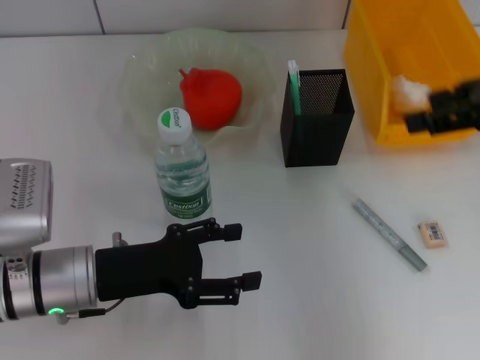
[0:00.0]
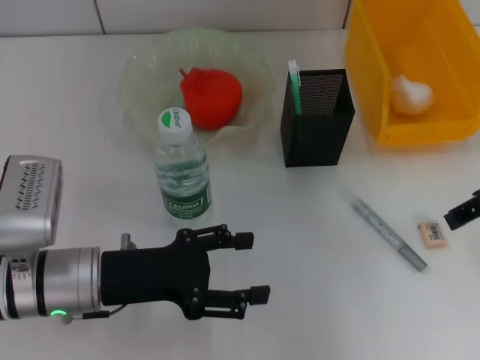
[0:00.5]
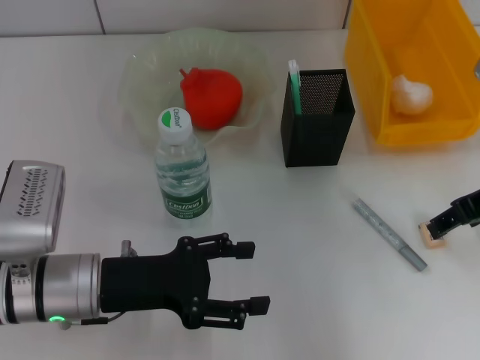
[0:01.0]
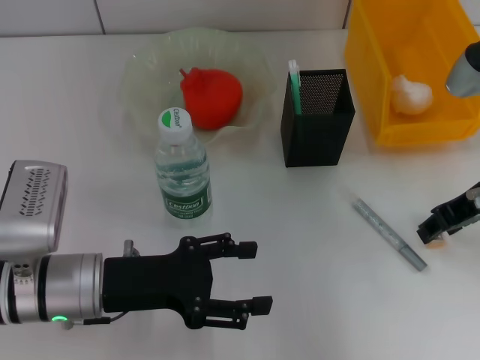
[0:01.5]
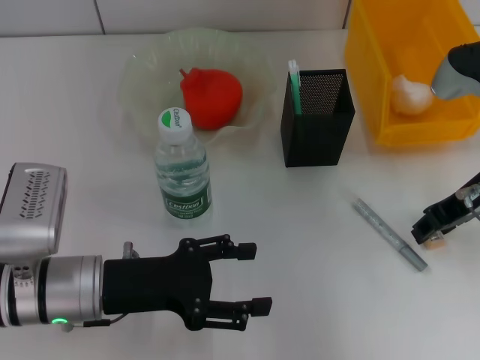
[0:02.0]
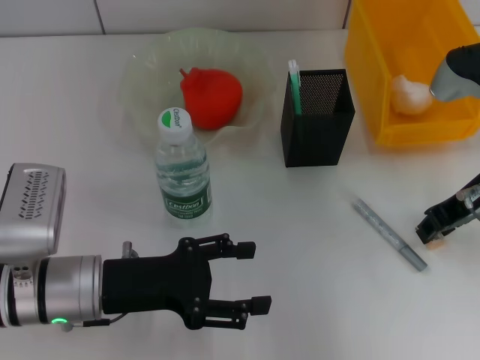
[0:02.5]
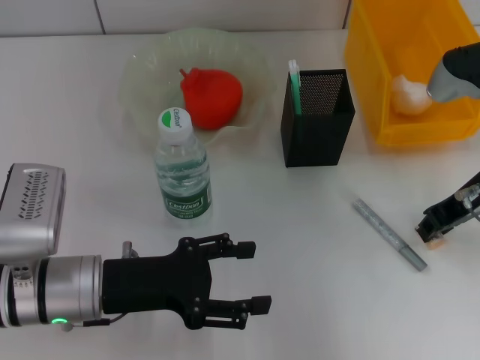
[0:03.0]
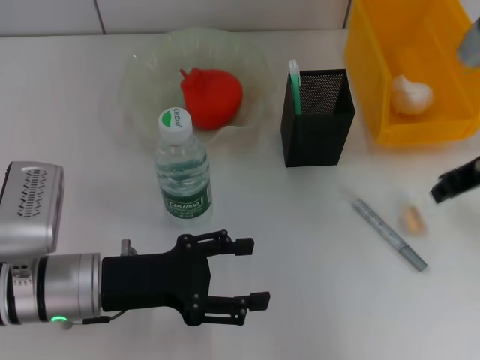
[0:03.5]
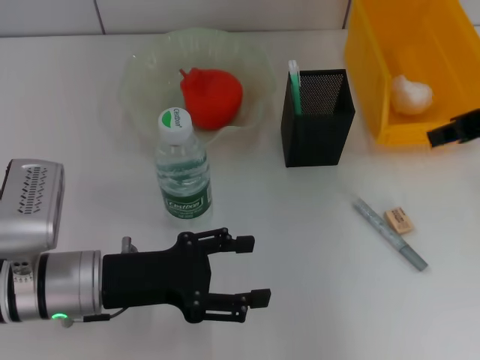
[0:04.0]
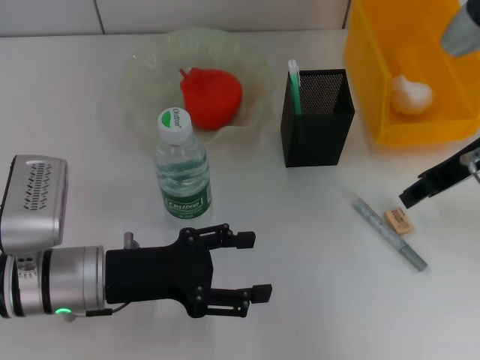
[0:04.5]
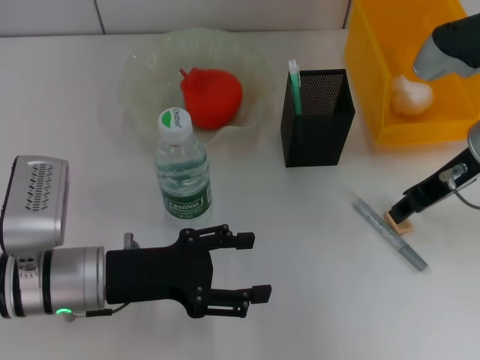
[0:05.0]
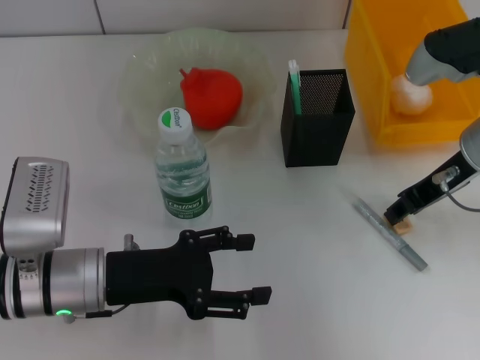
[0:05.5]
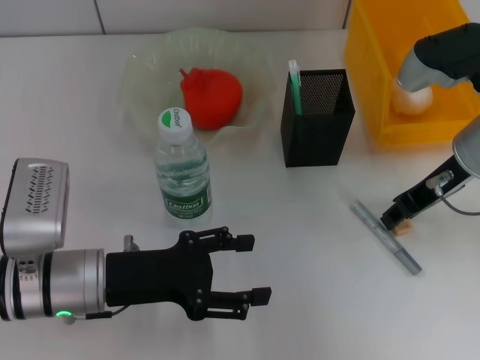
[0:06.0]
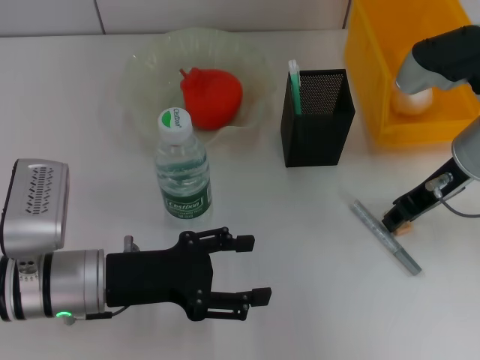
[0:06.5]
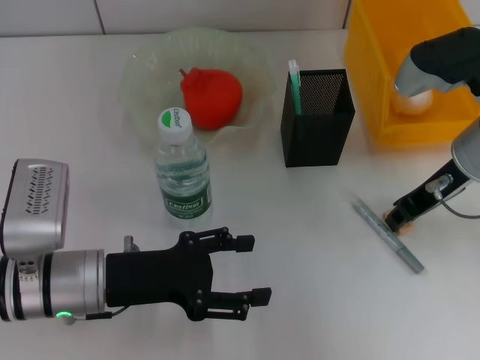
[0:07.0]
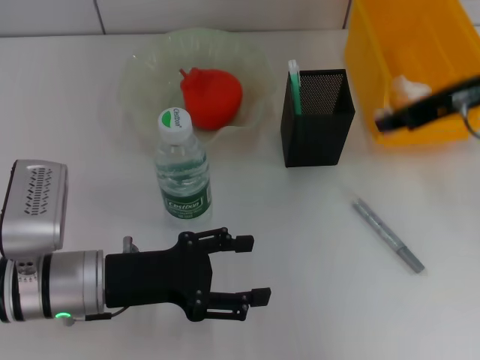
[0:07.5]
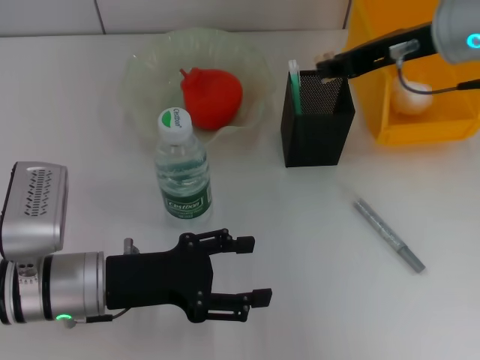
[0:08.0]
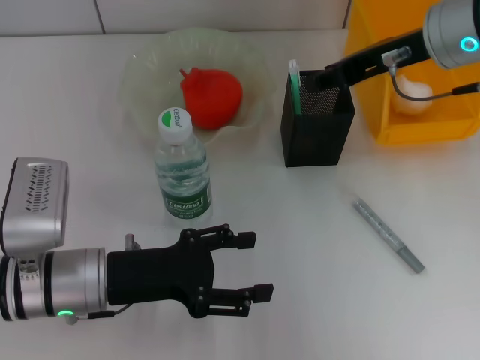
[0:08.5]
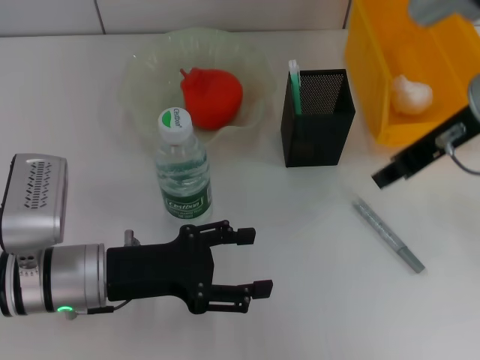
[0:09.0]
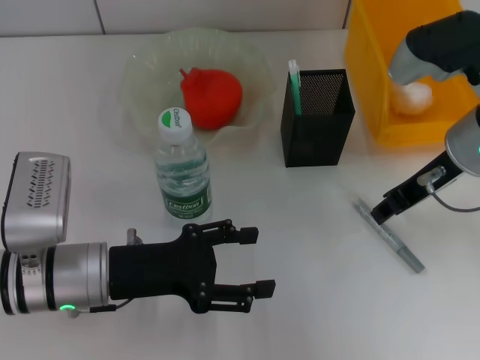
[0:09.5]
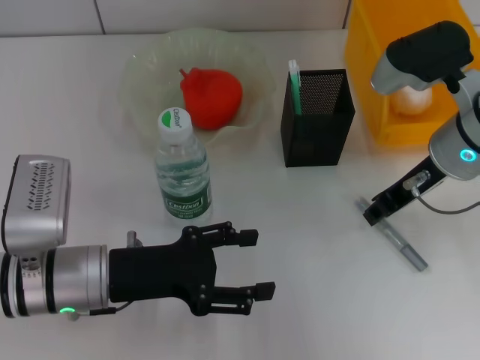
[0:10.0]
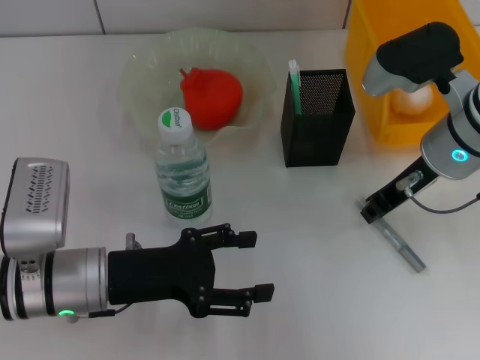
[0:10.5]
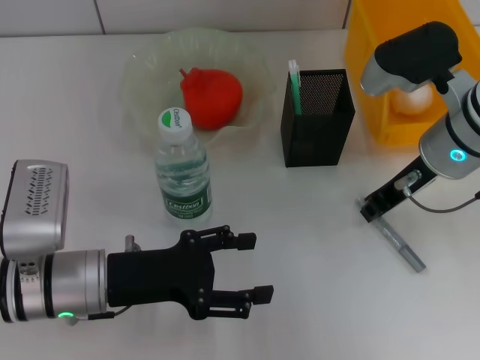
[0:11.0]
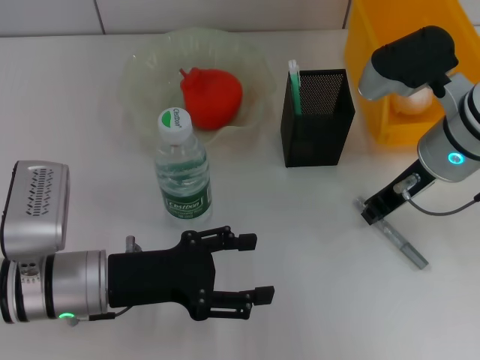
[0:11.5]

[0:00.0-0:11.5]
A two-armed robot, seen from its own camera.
Step, 0:00.0 to 0:06.5: Grab the eraser with the right hand.
Step, 0:07.5 to 0:08.0: Put the eraser into the pen holder with the right hand.
Step, 0:08.5 to 0:11.5: Grab the gray glue with the right hand.
0:00.0 to 0:02.0: The right gripper travels downward by about 10 cm, and closes up.
0:02.0 to 0:04.0: The right gripper is displaced upward by roughly 10 cm, and closes its fingers.
0:04.0 to 0:06.0: The right gripper is displaced downward by about 10 cm, and opens.
0:06.0 to 0:07.5: The right gripper goes approximately 10 cm upward.
0:07.5 to 0:09.5: The right gripper travels downward by some 5 cm.
0:09.5 to 0:11.5: The right gripper closes.

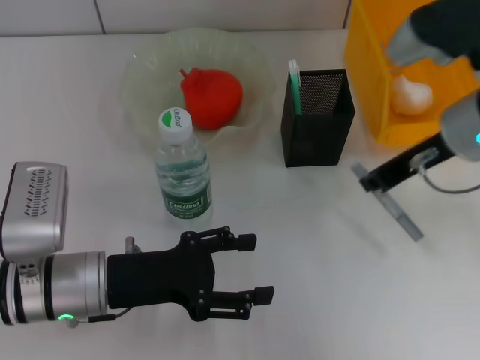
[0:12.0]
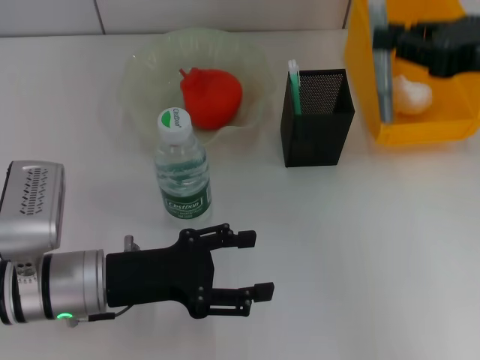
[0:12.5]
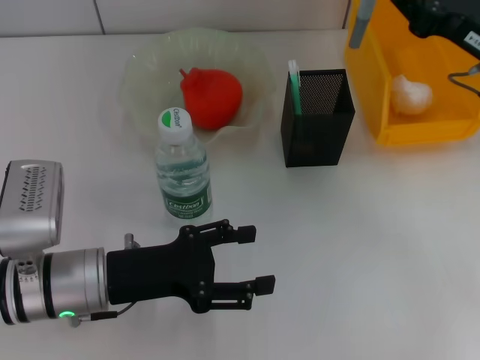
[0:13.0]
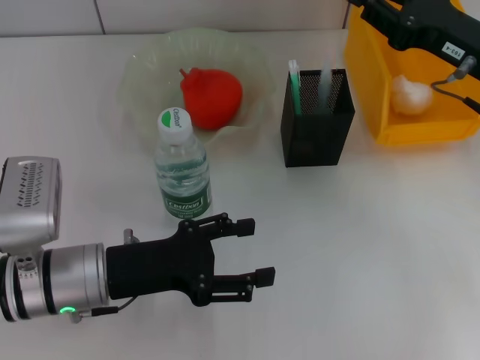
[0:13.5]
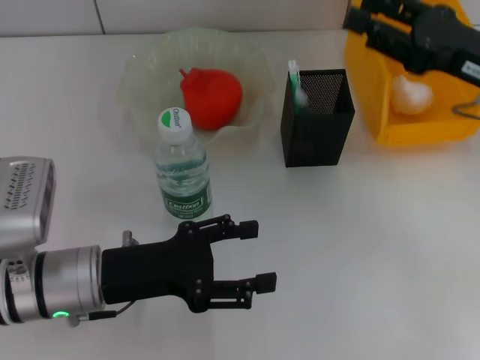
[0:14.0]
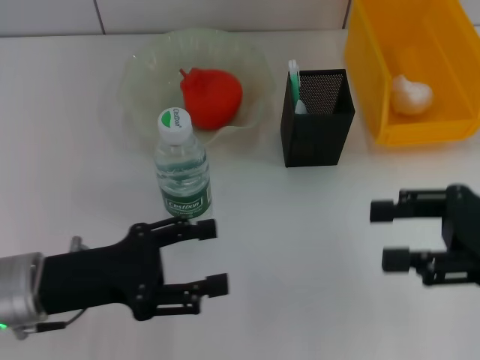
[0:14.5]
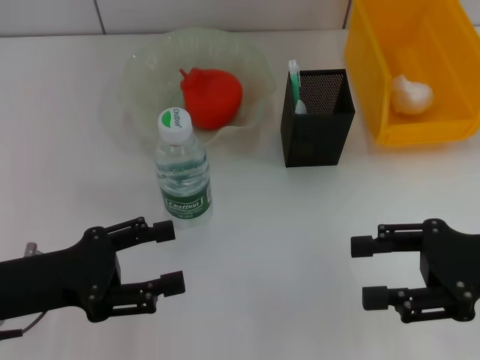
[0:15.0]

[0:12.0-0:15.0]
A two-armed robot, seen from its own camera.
Step, 0:12.0 to 0:13.5: Place the gray glue into the pen holder with the right hand.
0:12.0 to 0:13.5: The right gripper travels to the right by about 5 cm.
0:13.5 to 0:15.0: The left gripper is displaced to the left by about 10 cm, while the right gripper travels backward by some 10 cm, and opens up.
